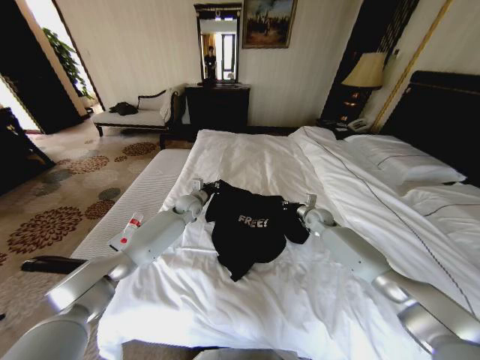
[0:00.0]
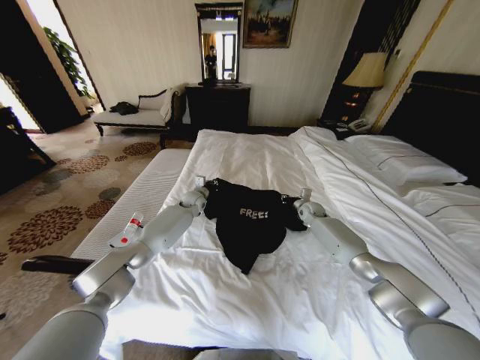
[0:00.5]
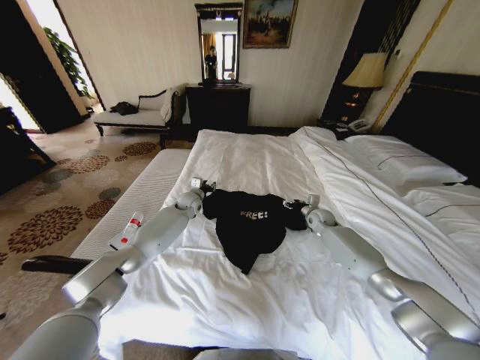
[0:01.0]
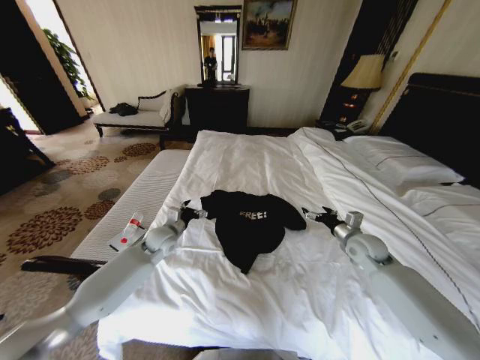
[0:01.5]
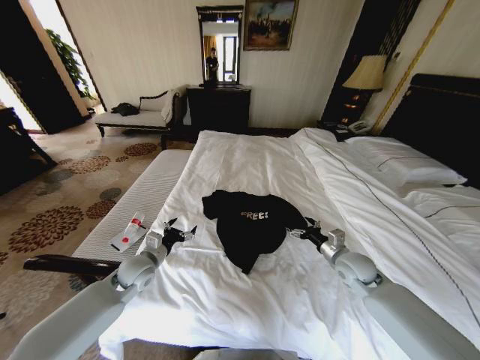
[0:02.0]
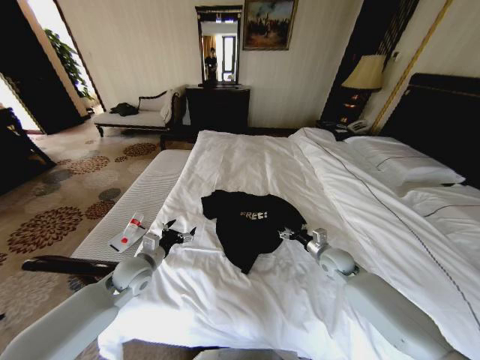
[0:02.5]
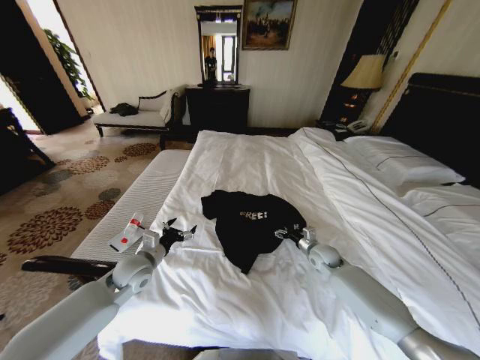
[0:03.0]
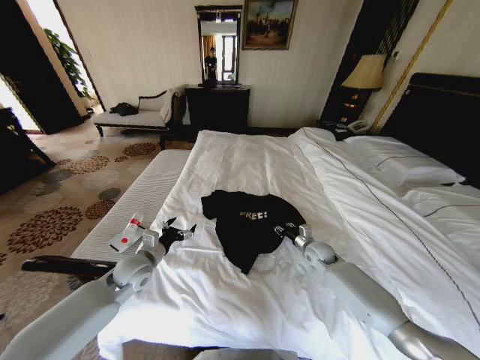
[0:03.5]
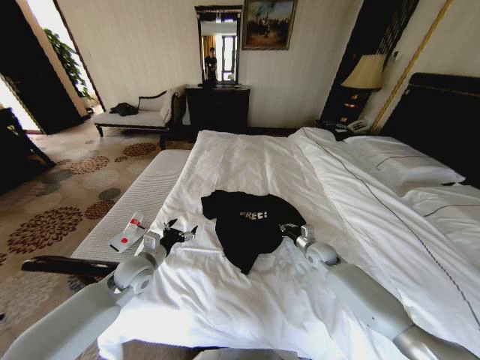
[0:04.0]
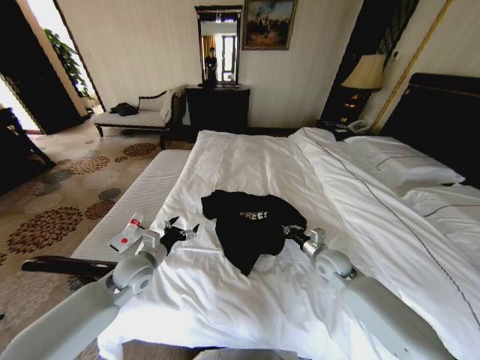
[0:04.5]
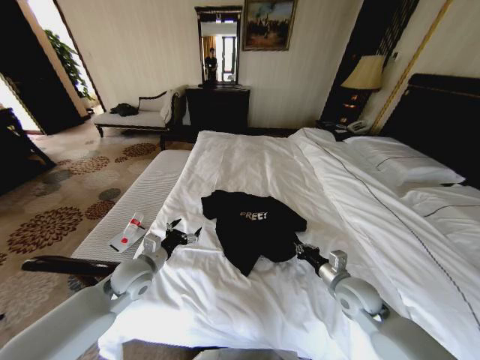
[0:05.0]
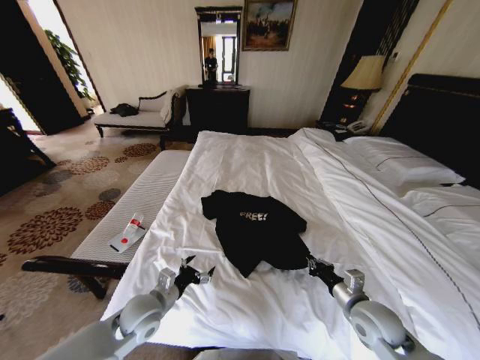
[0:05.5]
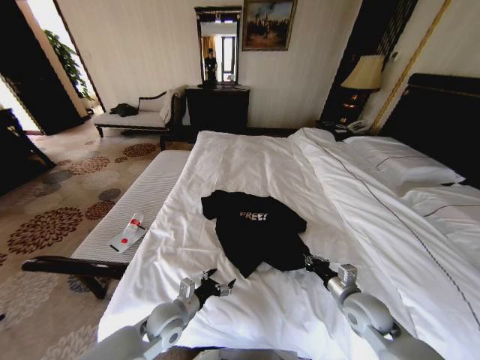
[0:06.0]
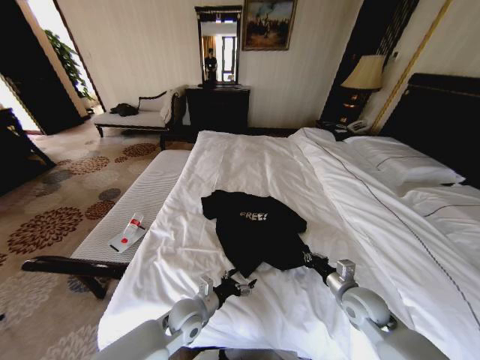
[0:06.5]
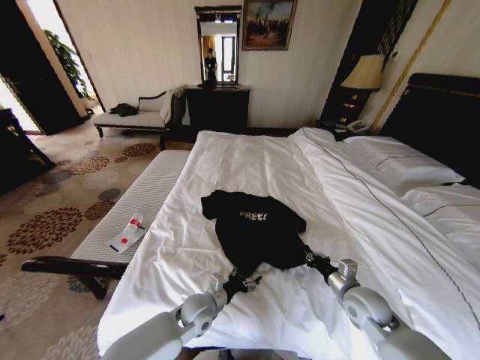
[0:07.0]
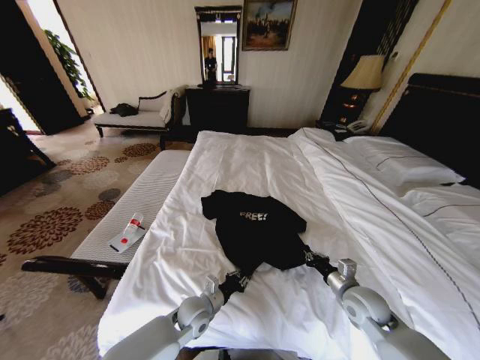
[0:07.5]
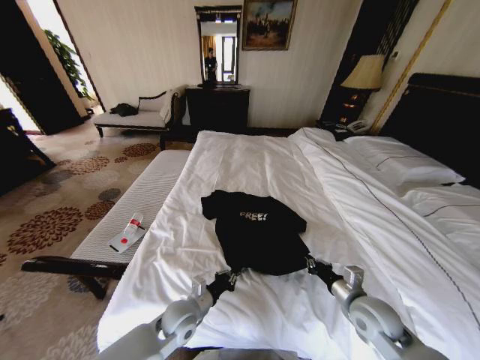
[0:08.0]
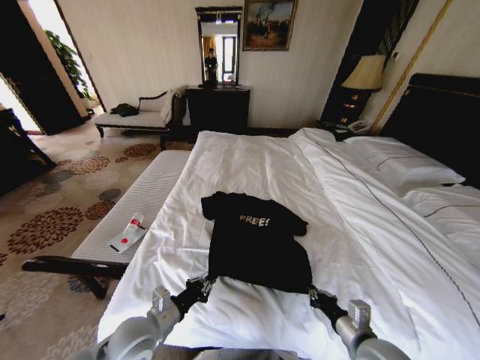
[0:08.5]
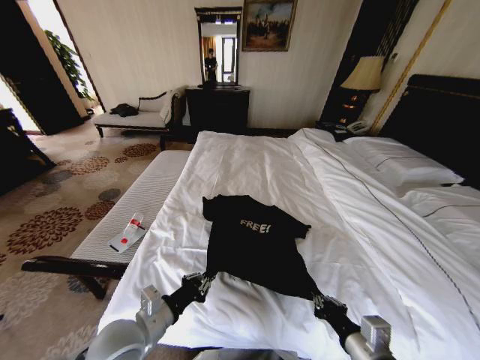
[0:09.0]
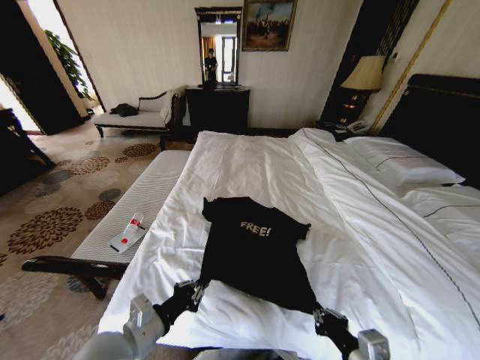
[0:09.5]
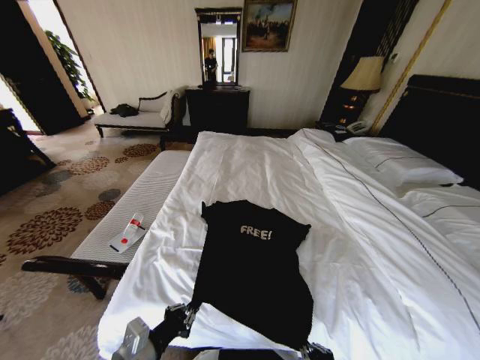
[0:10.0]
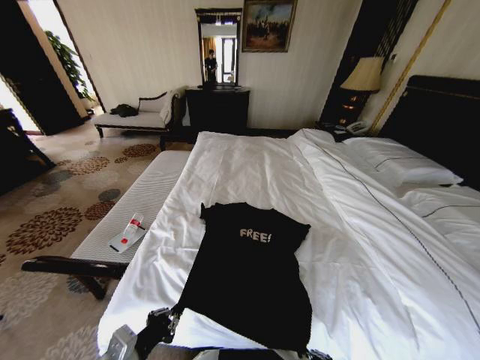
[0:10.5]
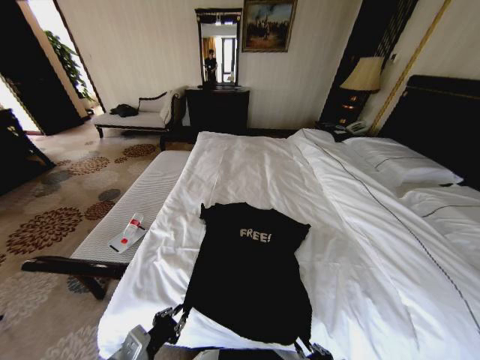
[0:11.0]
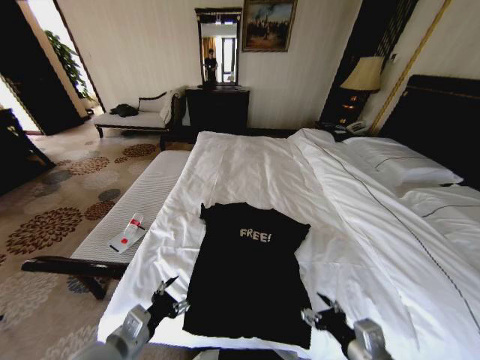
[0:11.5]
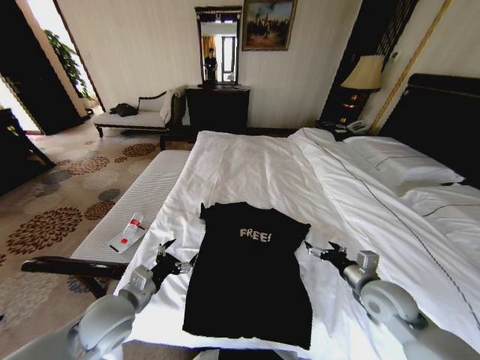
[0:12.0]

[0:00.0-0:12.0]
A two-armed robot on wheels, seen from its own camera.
Task of the whole recording: Fold the clothes on the bed.
0:00.0 to 0:02.0: The right gripper heads backward, covering about 20 cm, and opens up; the left gripper goes roughly 25 cm backward and to the left, and opens up.
0:02.0 to 0:04.0: The right gripper heads forward and downward, covering some 10 cm, and closes its fingers.
0:04.0 to 0:06.0: The right gripper heads backward, covering some 20 cm, while the left gripper heads backward, downward and to the right, covering about 15 cm.
0:06.0 to 0:08.0: The left gripper closes.
0:08.0 to 0:10.0: The left gripper heads upward, backward and to the left, covering some 20 cm. Meanwhile the right gripper goes roughly 20 cm backward and to the left.
0:10.0 to 0:12.0: The left gripper is displaced forward by about 10 cm, and opens its fingers, while the right gripper travels forward and to the right by about 25 cm, and opens.

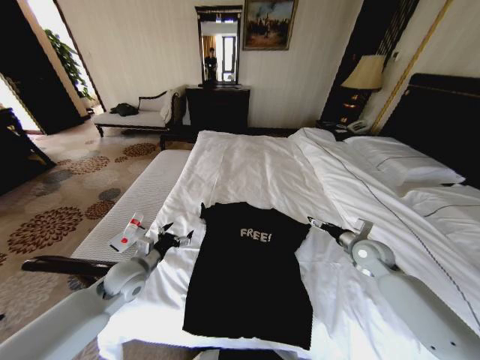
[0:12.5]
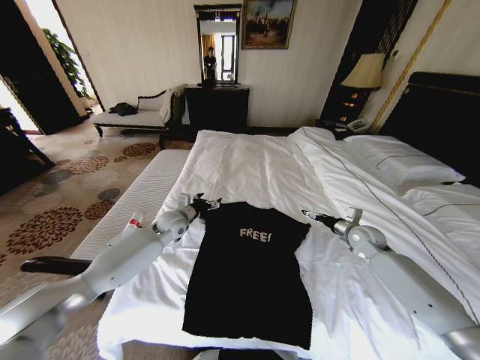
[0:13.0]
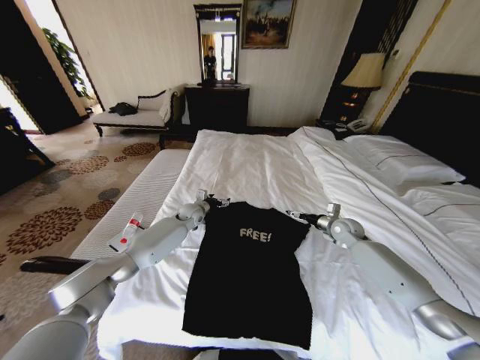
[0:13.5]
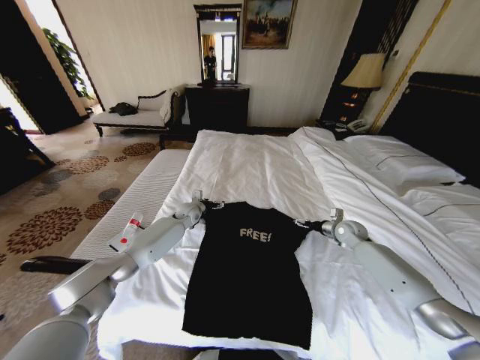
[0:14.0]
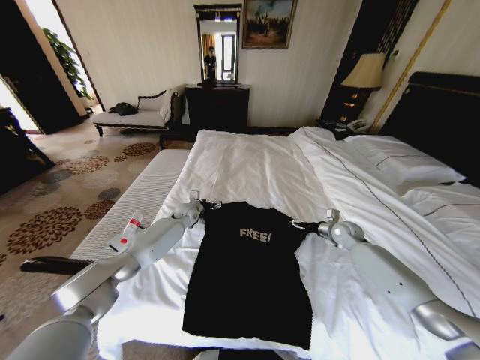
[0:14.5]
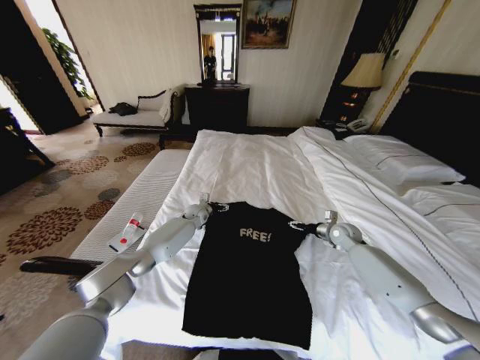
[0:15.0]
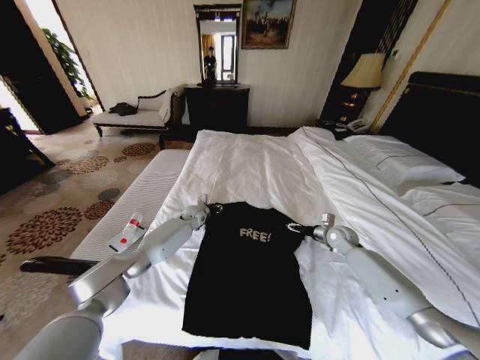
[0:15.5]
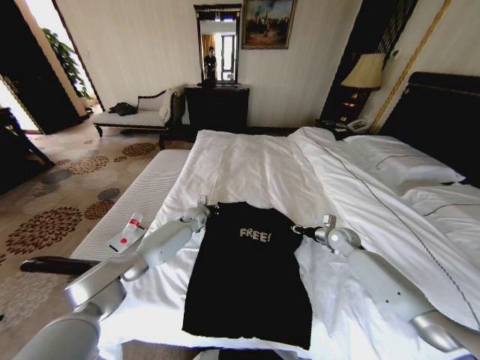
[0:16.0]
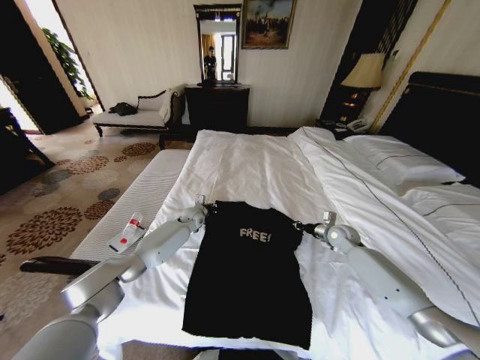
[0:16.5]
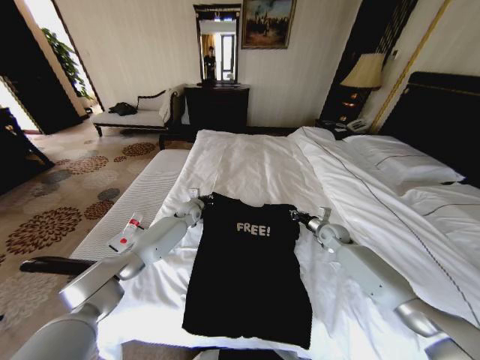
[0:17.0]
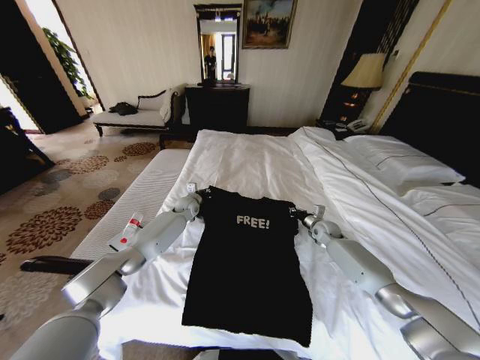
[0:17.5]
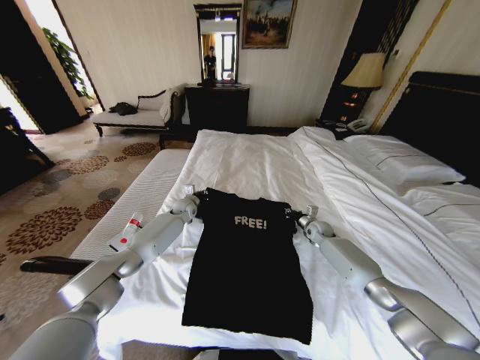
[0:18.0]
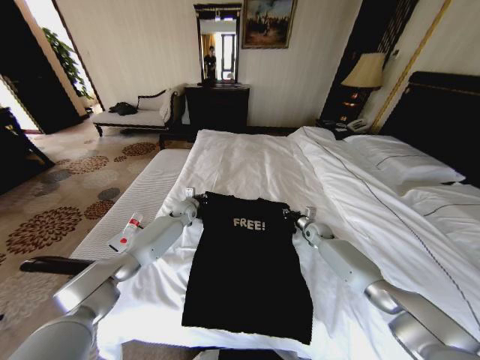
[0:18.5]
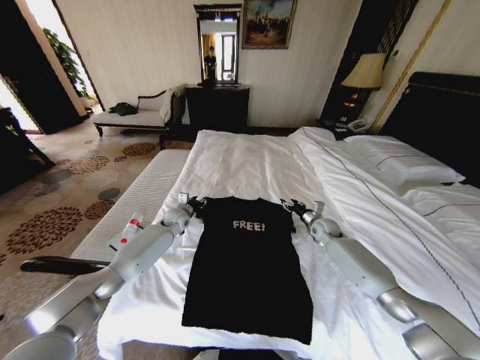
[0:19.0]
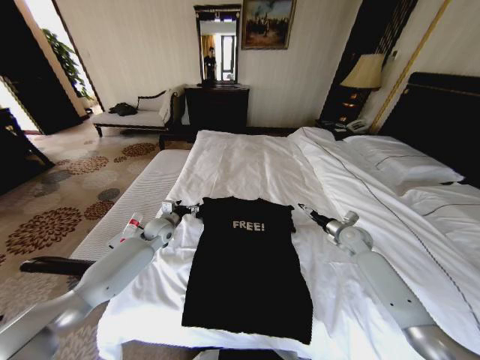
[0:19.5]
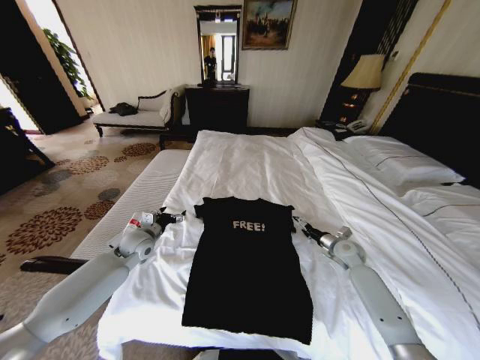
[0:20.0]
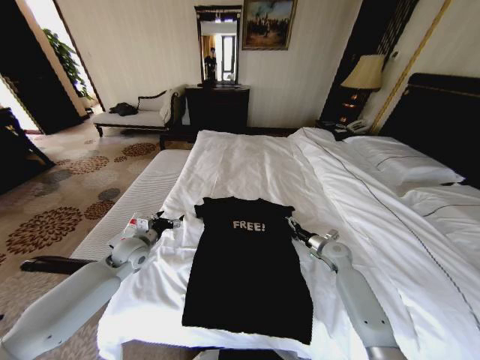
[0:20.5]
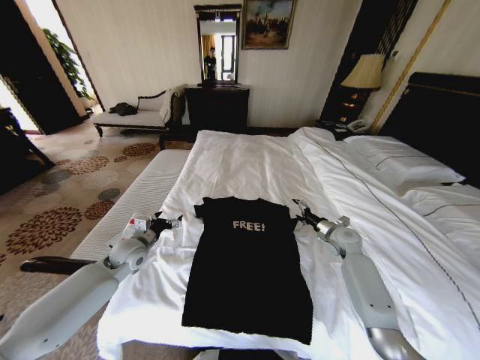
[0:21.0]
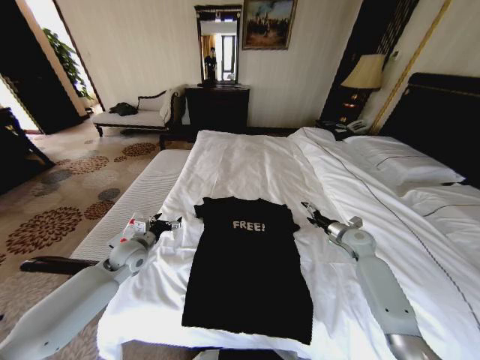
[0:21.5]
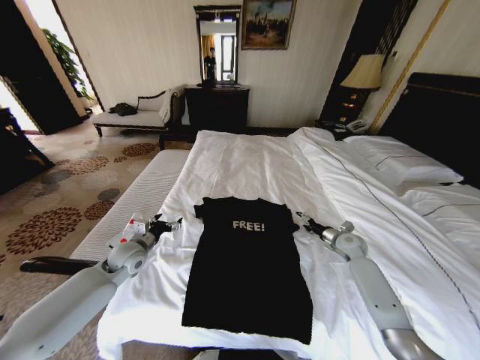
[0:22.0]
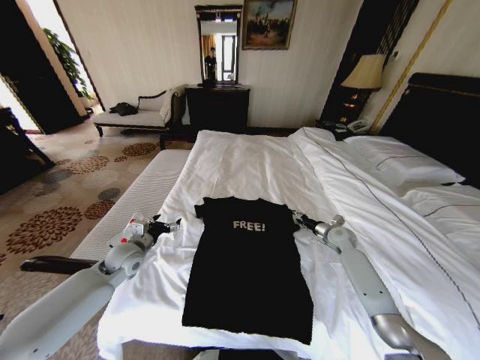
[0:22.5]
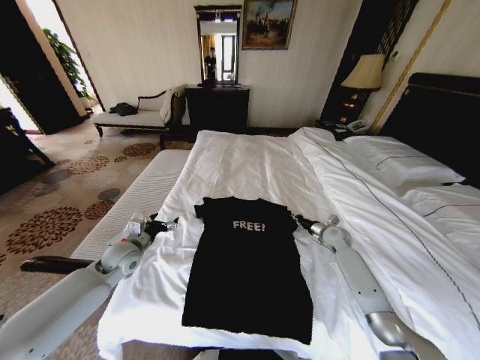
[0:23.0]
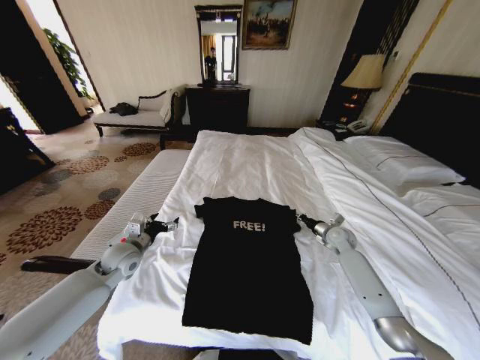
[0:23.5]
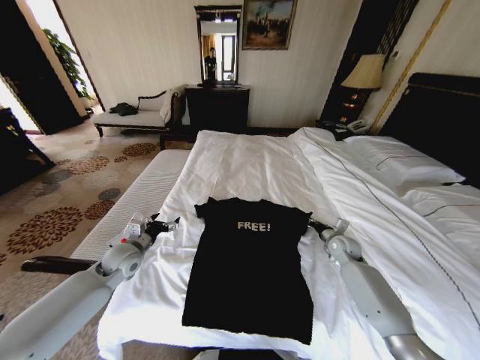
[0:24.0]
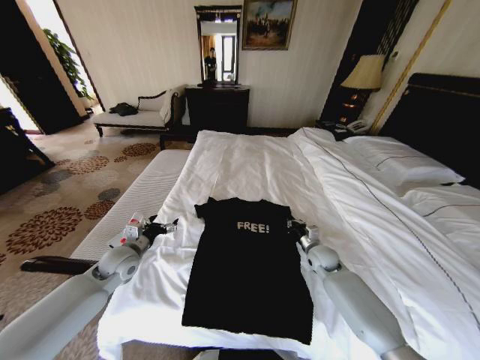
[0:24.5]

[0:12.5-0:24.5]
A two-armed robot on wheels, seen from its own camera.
Task of the whole recording: Fold the clothes on the bed.
0:12.5 to 0:14.5: The left gripper is displaced forward by roughly 25 cm; the right gripper is displaced forward by about 10 cm.
0:14.5 to 0:16.5: The left gripper closes, while the right gripper closes.
0:16.5 to 0:18.5: The right gripper is displaced forward and downward by approximately 10 cm.
0:18.5 to 0:20.5: The left gripper heads backward and to the left, covering about 25 cm, and opens; the right gripper is displaced backward by roughly 10 cm, and opens up.
0:20.5 to 0:22.5: The right gripper moves forward, some 5 cm.
0:22.5 to 0:24.5: The right gripper is displaced to the left and backward by roughly 10 cm, and closes up.

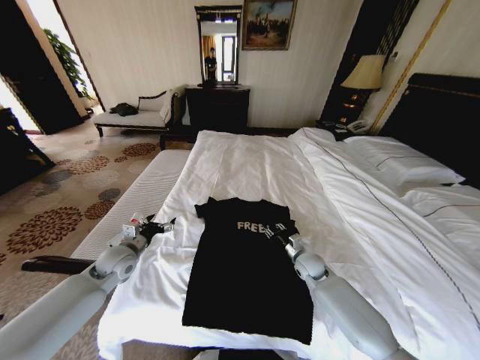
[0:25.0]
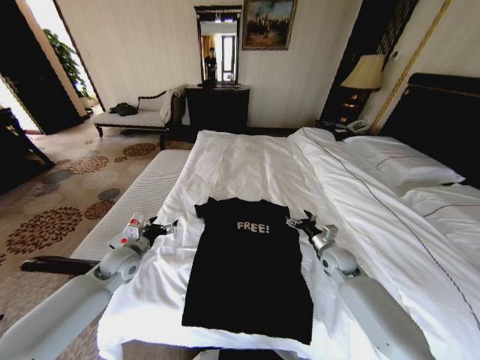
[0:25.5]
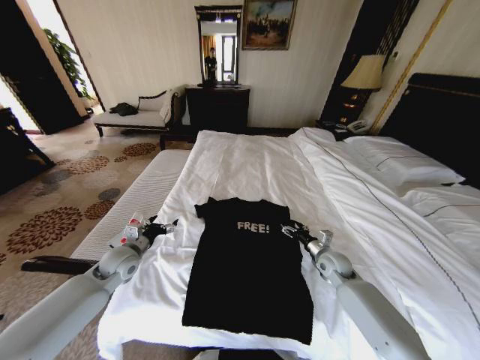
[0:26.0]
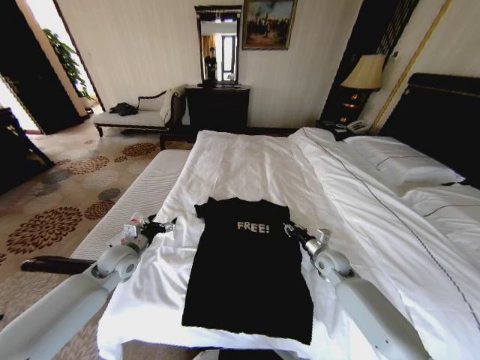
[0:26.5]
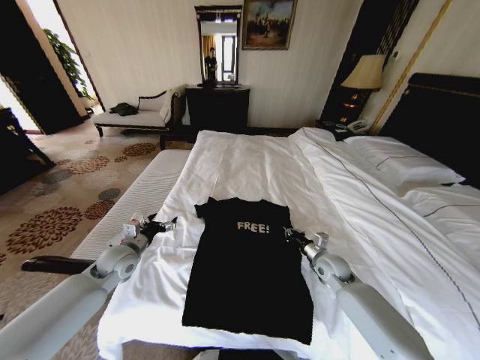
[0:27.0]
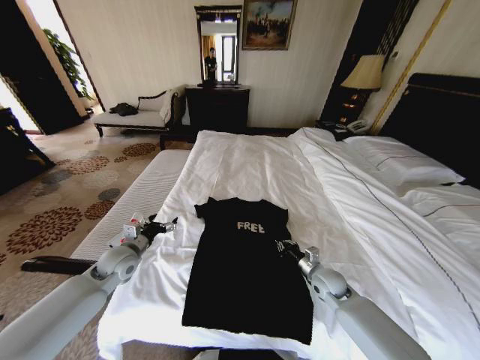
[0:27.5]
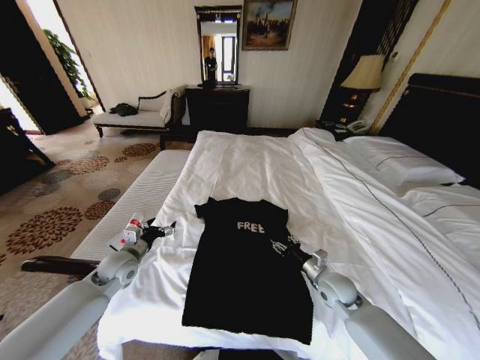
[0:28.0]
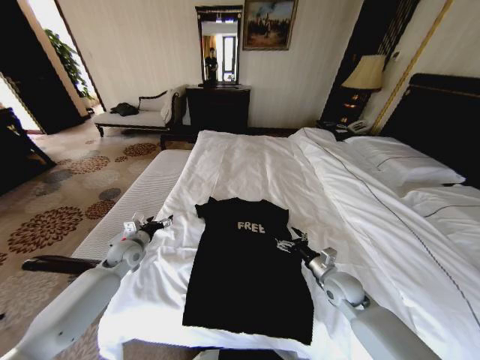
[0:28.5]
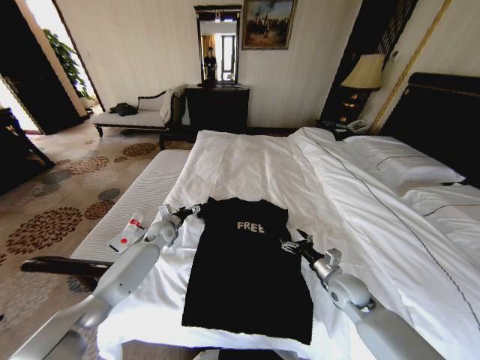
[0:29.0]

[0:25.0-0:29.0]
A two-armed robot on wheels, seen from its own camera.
Task of the whole recording: Fold the clothes on the bed.
0:25.0 to 0:27.0: The right gripper heads to the right, covering roughly 5 cm, and closes up.
0:27.0 to 0:29.0: The left gripper moves forward, to the right and downward, roughly 15 cm, while the right gripper goes approximately 10 cm backward, and opens its fingers.
